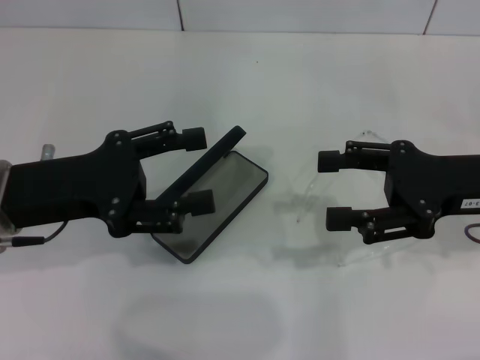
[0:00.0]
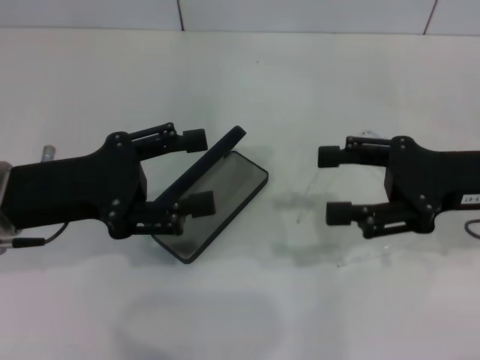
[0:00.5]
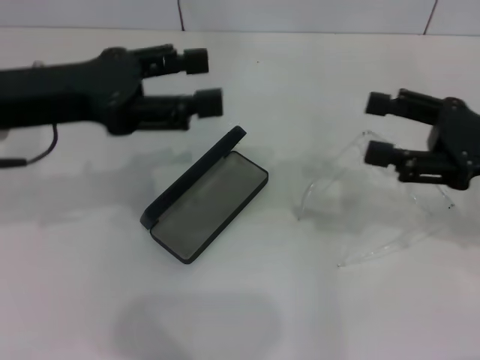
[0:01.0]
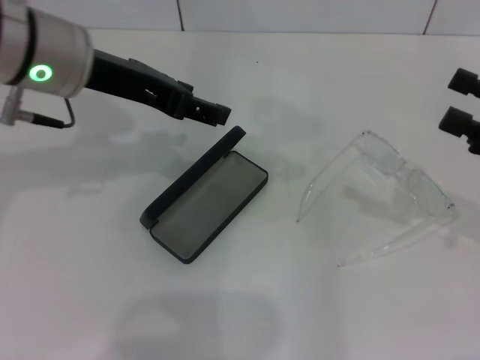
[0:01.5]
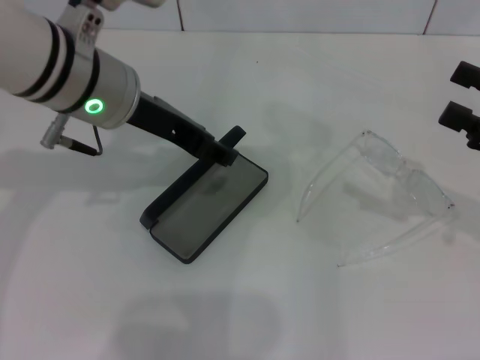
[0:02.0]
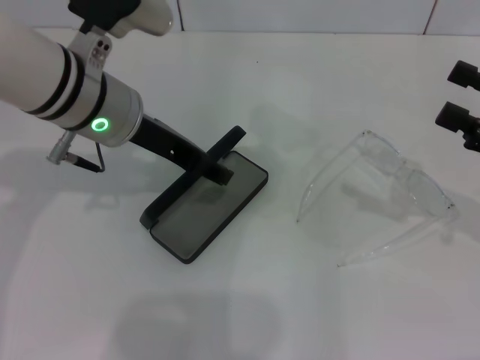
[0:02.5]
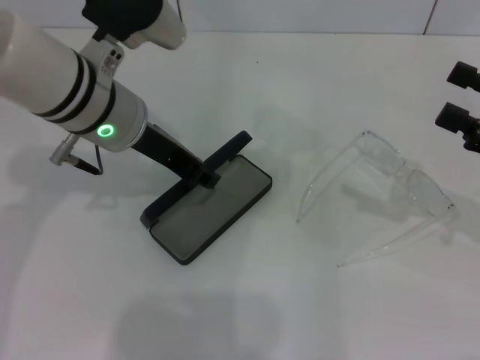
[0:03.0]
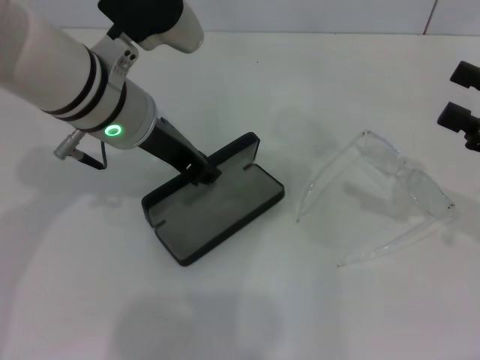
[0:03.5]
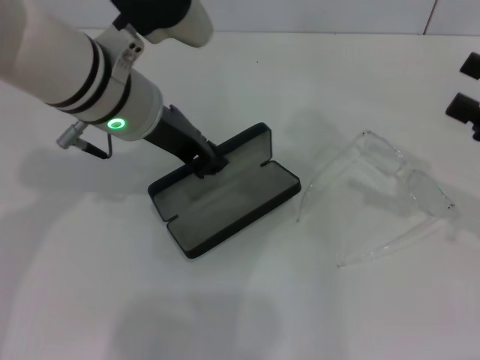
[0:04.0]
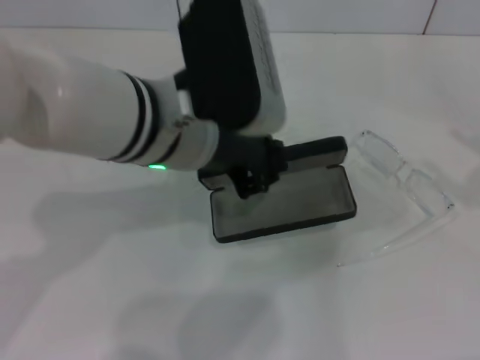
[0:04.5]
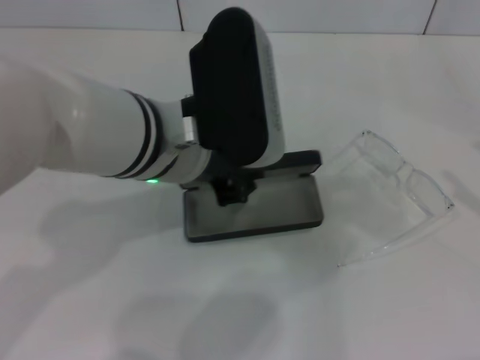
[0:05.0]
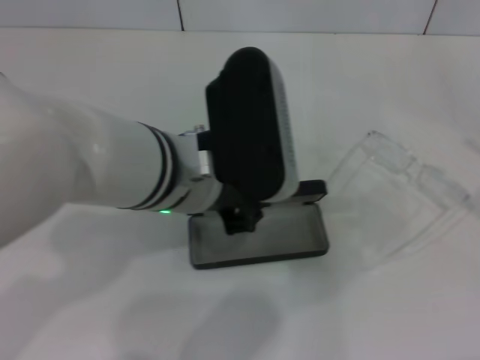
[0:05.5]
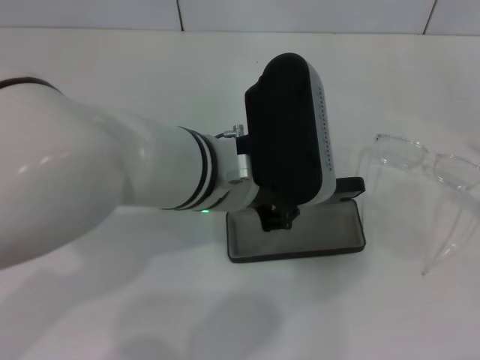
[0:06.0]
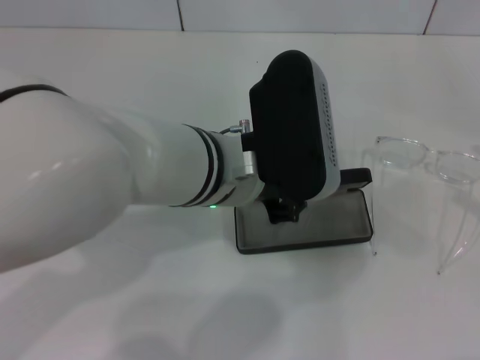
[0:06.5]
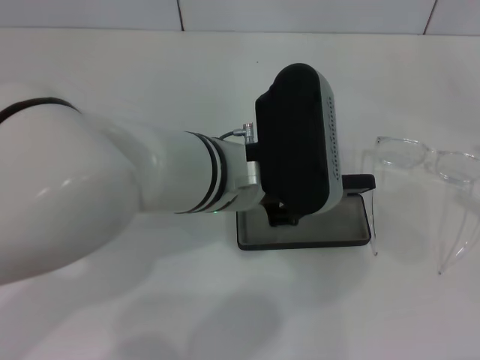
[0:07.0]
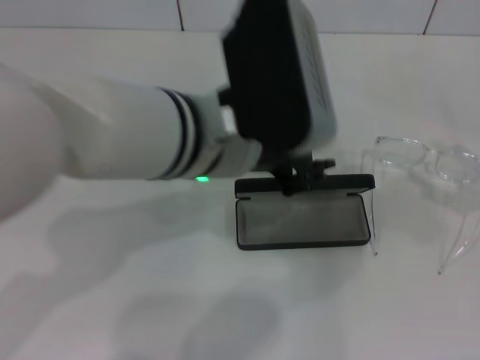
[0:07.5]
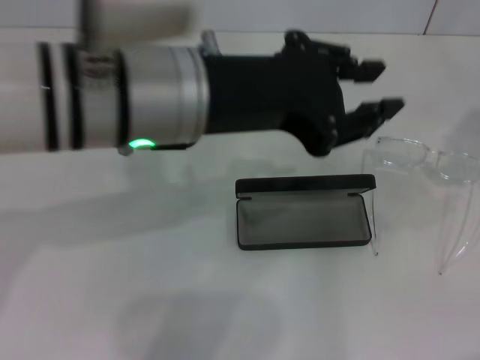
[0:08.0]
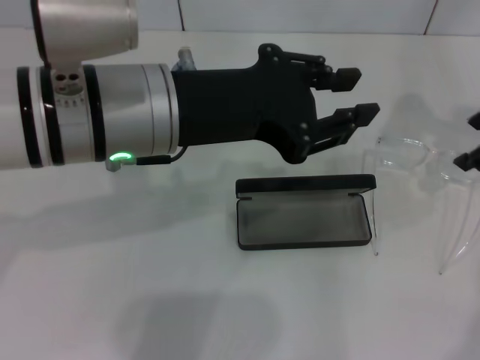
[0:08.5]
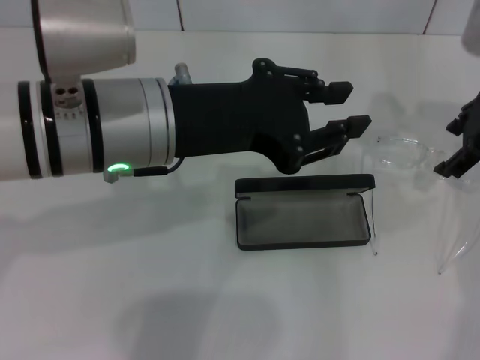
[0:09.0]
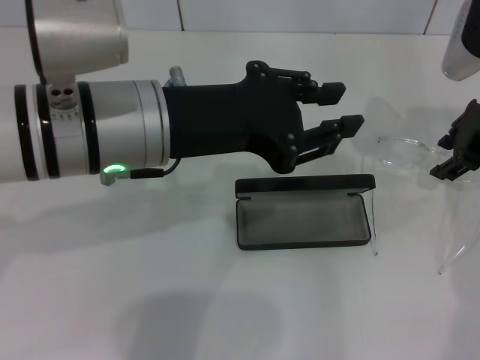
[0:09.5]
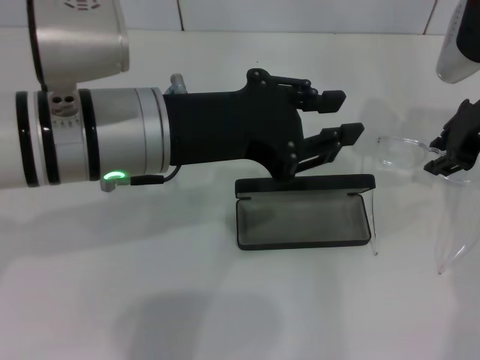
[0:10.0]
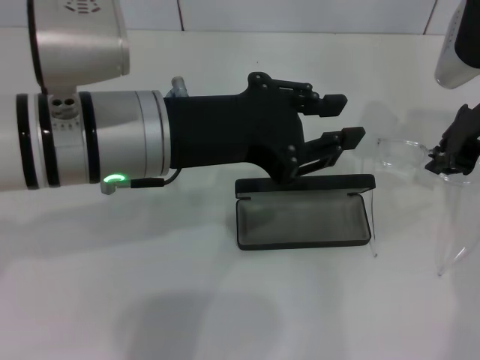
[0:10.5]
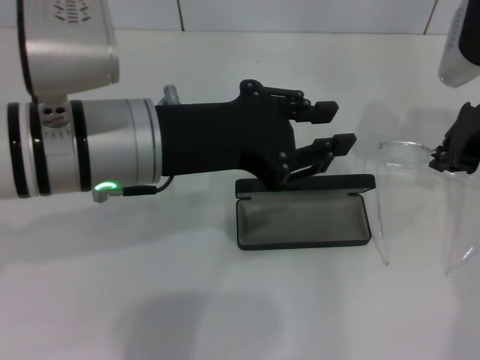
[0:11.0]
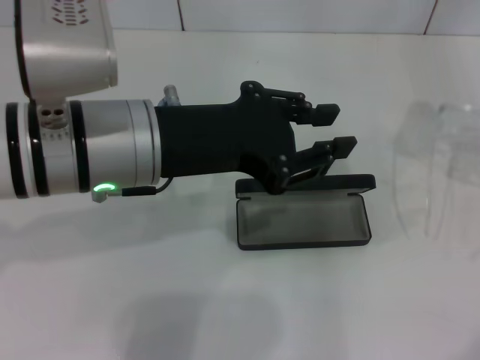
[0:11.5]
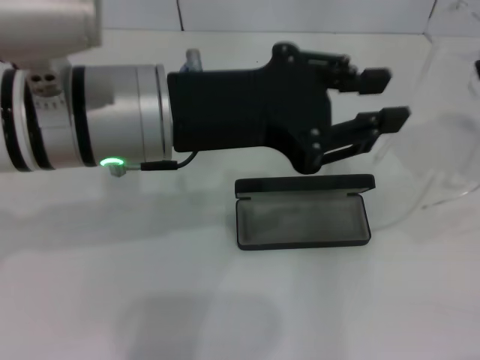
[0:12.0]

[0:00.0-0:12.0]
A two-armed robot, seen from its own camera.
Step, 0:00.0 to 0:03.0: Grab the glasses case with your left hand.
Step, 0:03.5 to 0:07.0: Place the glasses case in the center of the table with your left hand.
Step, 0:07.5 to 0:11.0: Grab the eyeglass frame with your right hand.
0:00.0 to 0:02.0: The left gripper is displaced to the right, forward and upward by roughly 15 cm; the right gripper moves to the right, about 10 cm.
0:02.0 to 0:04.0: The left gripper closes its fingers.
0:04.0 to 0:06.0: Both grippers move to the right and backward, some 10 cm.
0:06.0 to 0:08.0: The left gripper shifts some 10 cm upward and to the left. The right gripper heads forward and upward, covering roughly 15 cm.
0:08.0 to 0:10.0: The right gripper is displaced to the left, forward and downward by about 15 cm, and closes up.
0:10.0 to 0:12.0: The right gripper shifts approximately 15 cm upward, to the right and backward, and closes its fingers.

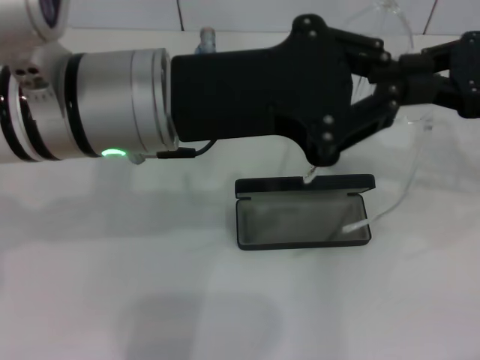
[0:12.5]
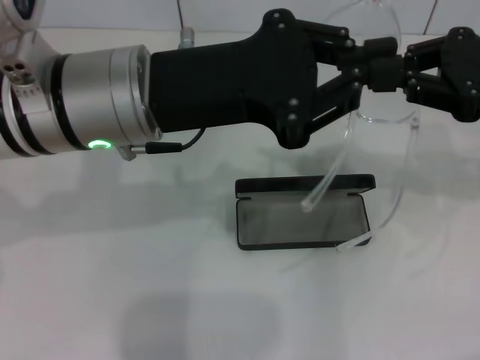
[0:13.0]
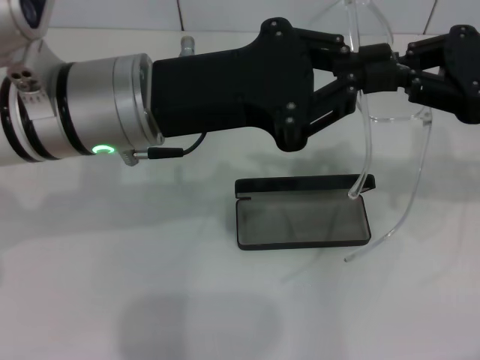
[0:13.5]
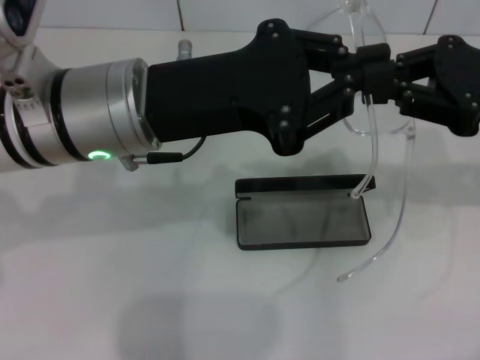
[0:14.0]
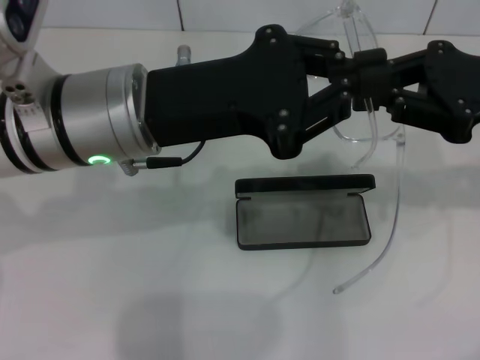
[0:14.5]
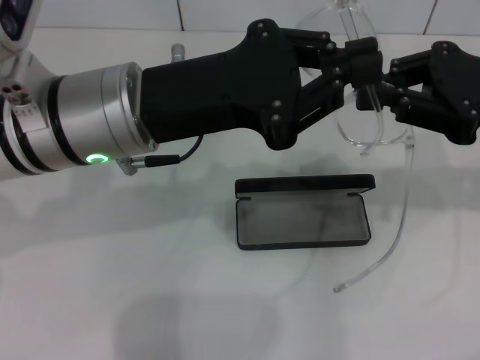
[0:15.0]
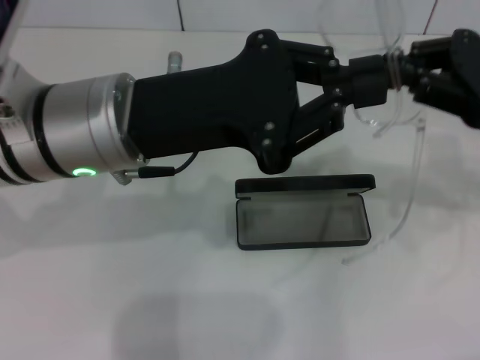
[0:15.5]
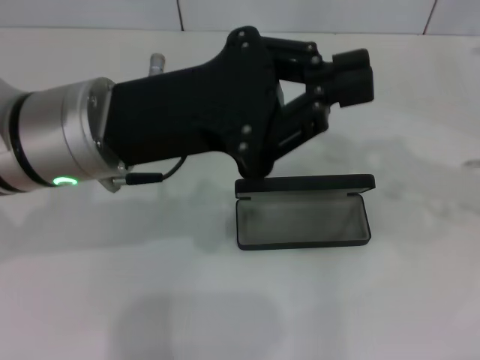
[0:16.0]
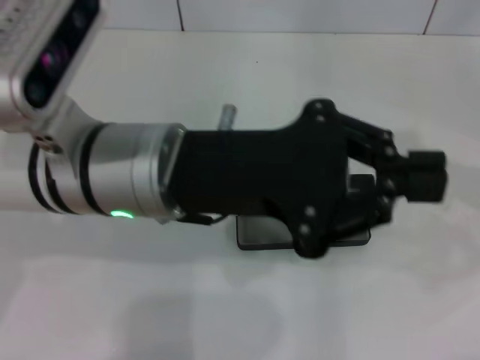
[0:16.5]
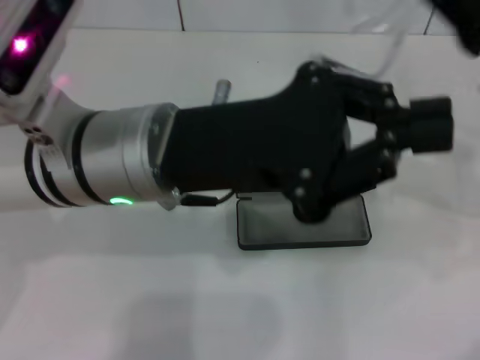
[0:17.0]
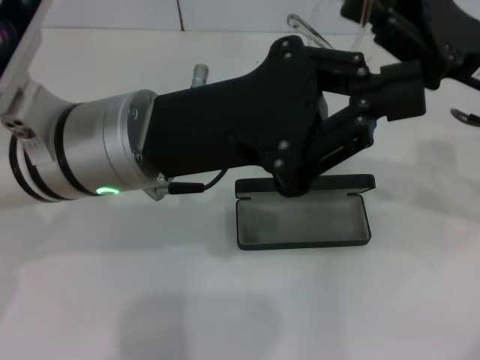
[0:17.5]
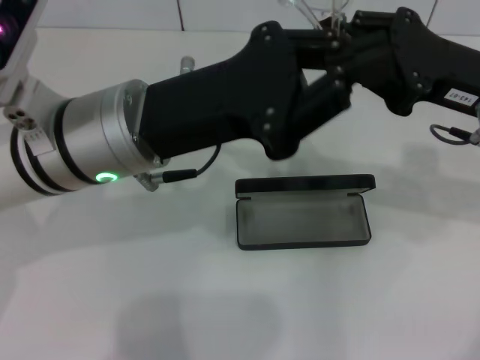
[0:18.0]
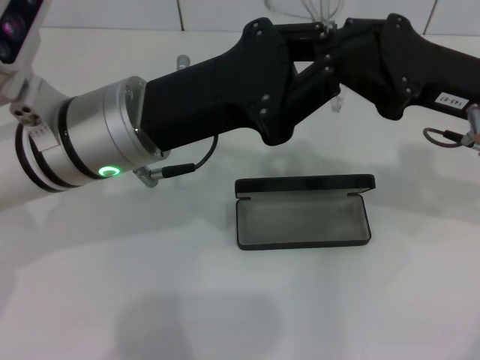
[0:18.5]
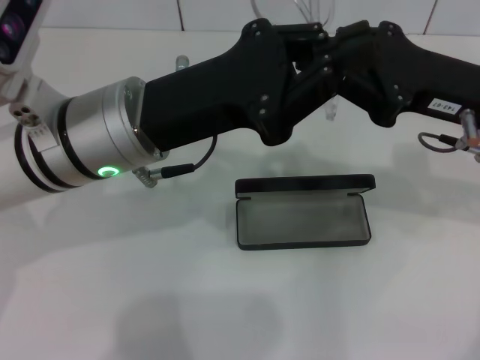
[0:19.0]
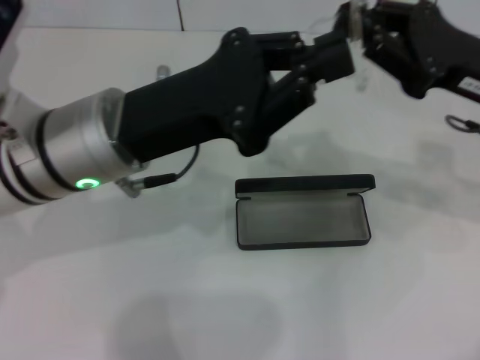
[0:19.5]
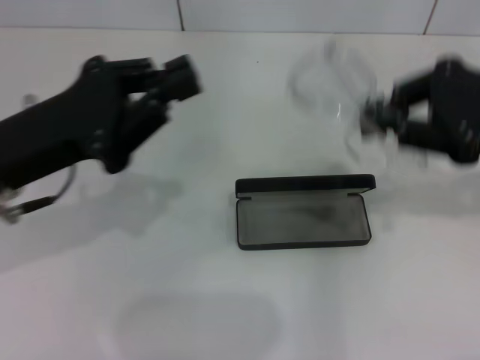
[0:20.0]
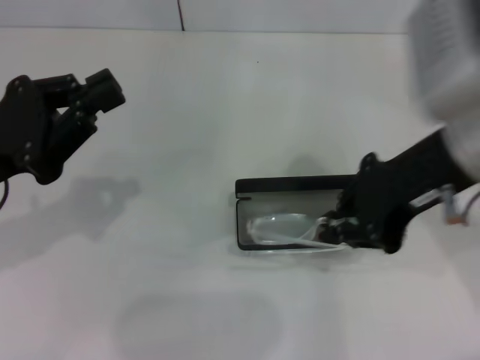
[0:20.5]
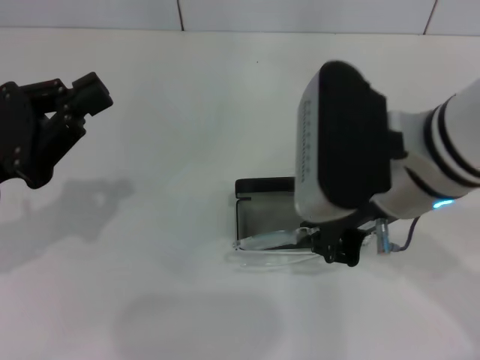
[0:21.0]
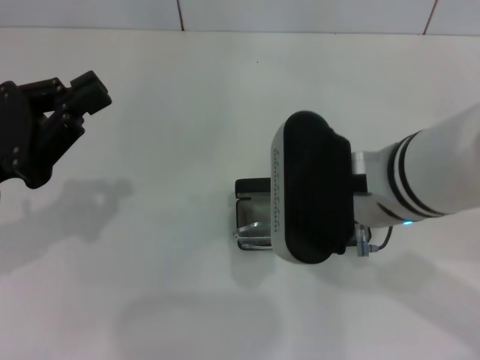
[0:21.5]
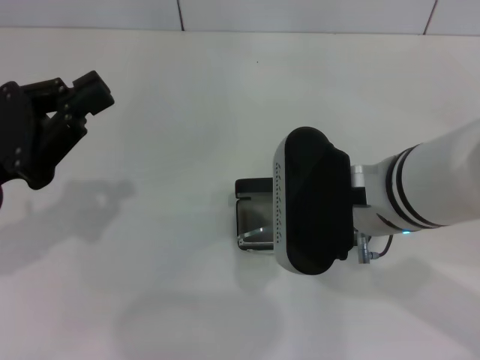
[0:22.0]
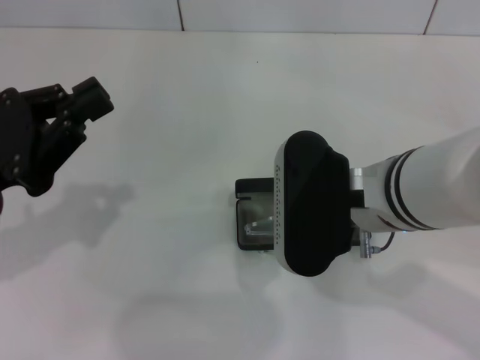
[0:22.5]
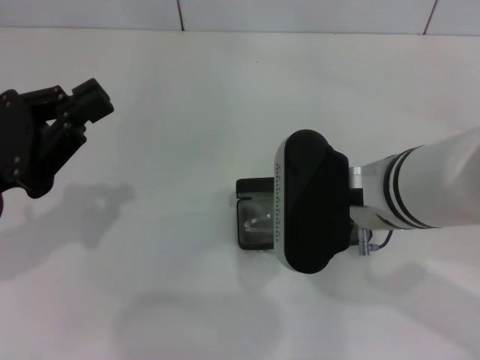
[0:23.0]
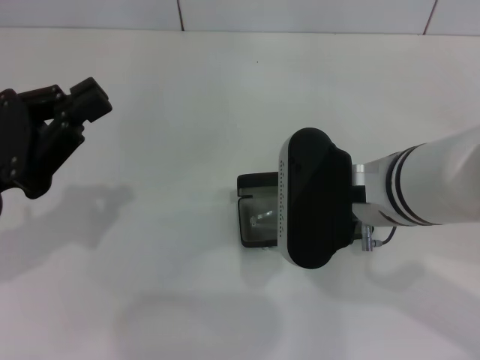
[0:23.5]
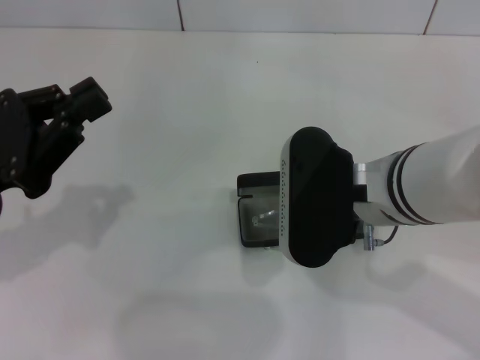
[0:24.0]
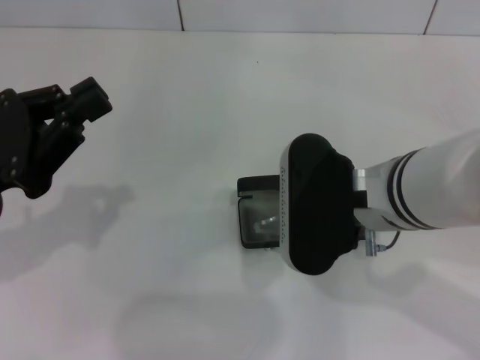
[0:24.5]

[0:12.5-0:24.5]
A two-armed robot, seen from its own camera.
0:12.5 to 0:14.5: The grippers make only small movements.
0:14.5 to 0:16.5: The right gripper shifts approximately 5 cm to the right.
0:16.5 to 0:18.5: The right gripper shifts some 10 cm to the left.
0:18.5 to 0:20.5: The left gripper is displaced to the left by roughly 15 cm. Meanwhile the right gripper shifts roughly 10 cm upward and to the left.
0:20.5 to 0:22.5: The right gripper heads downward and to the left, covering approximately 10 cm.
0:22.5 to 0:24.5: The two grippers keep their place.

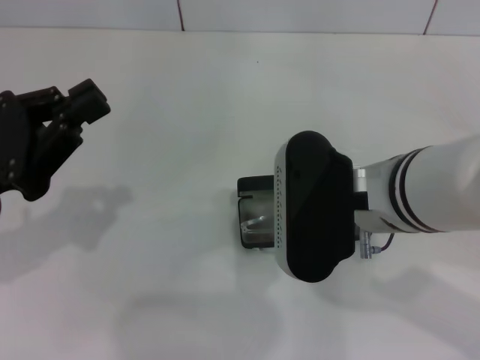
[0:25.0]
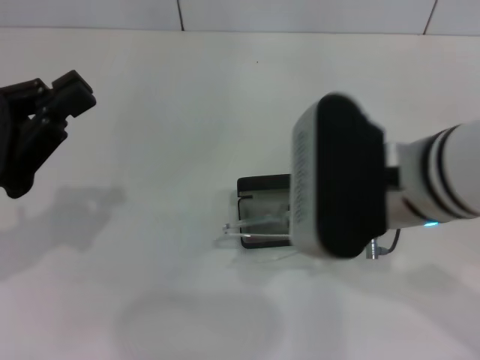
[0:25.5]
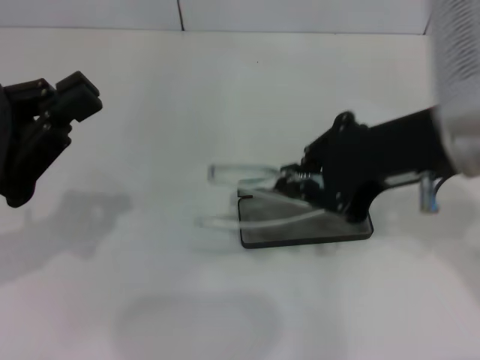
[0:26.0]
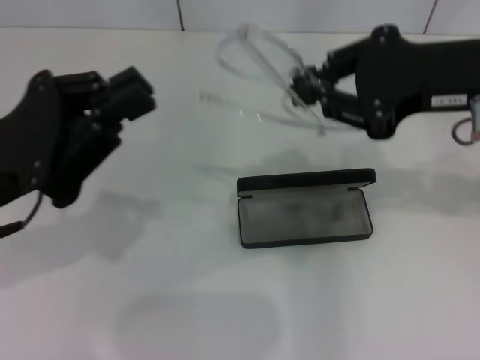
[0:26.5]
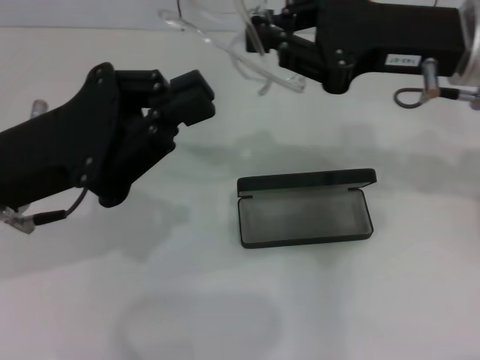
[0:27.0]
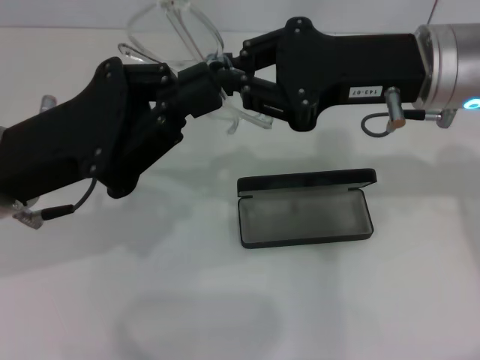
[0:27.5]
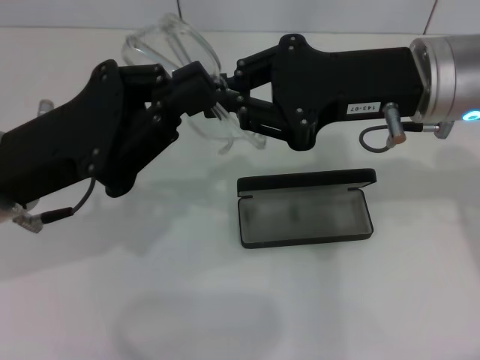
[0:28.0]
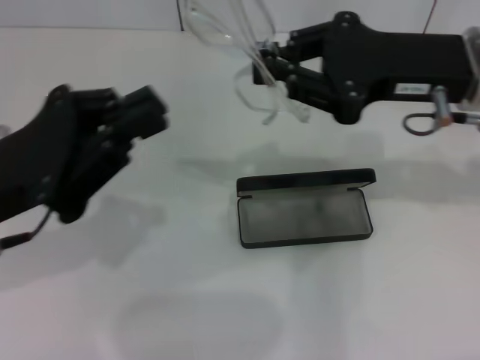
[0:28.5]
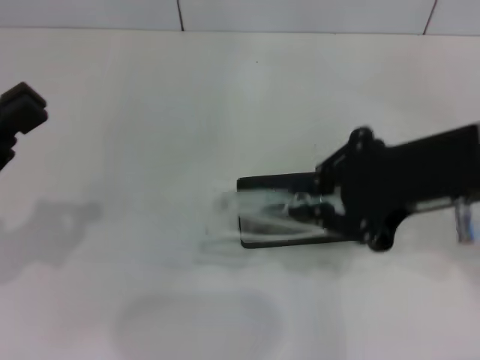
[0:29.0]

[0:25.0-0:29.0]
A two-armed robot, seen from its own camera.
Step, 0:25.0 to 0:28.0: Fold the frame with your left hand.
0:25.0 to 0:27.0: The right gripper is displaced to the right, forward and upward by about 15 cm; the left gripper shifts roughly 5 cm to the right.
0:27.0 to 0:29.0: The right gripper moves backward, approximately 10 cm. Meanwhile the left gripper is displaced to the left by about 10 cm.
